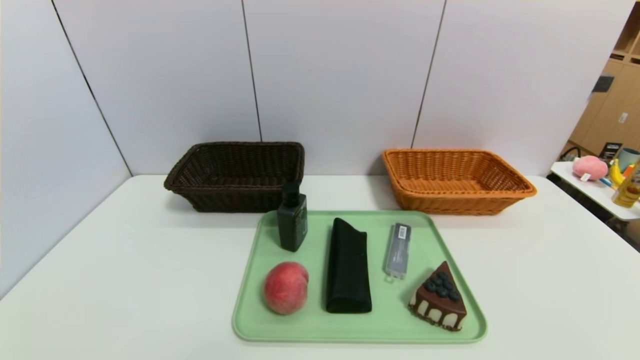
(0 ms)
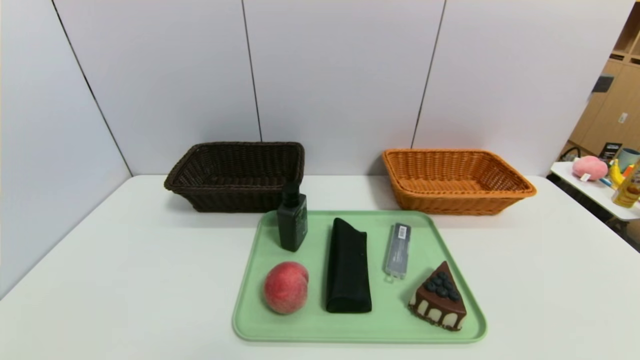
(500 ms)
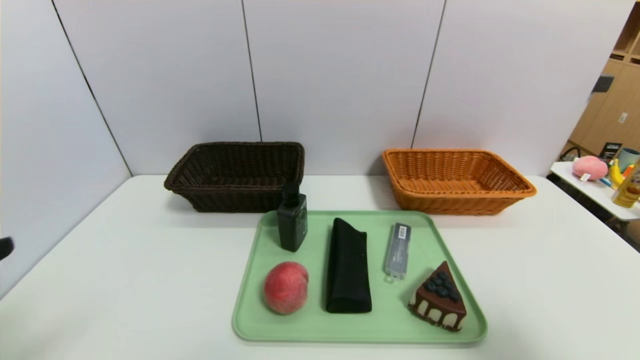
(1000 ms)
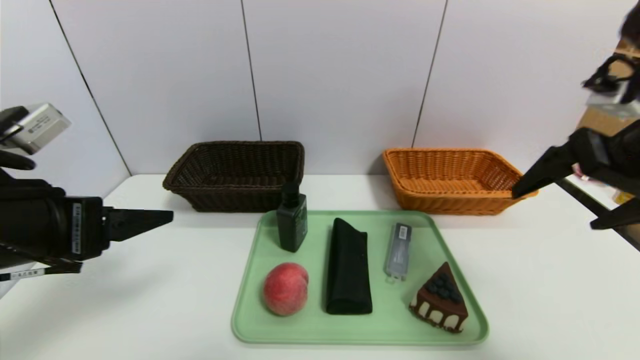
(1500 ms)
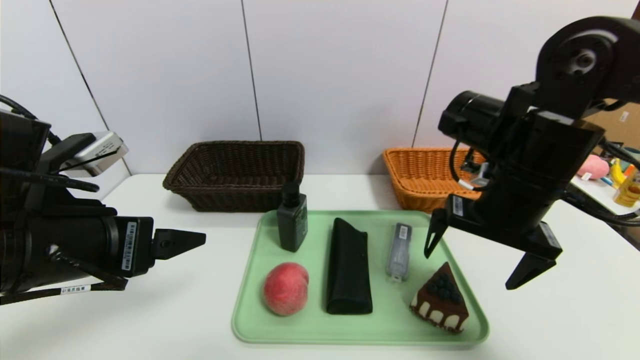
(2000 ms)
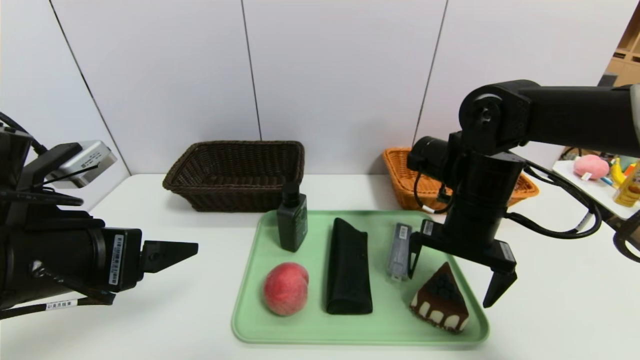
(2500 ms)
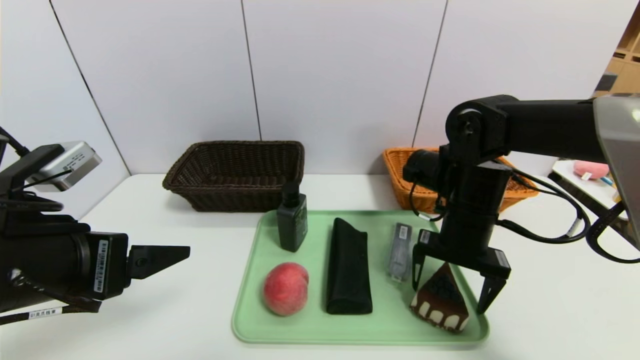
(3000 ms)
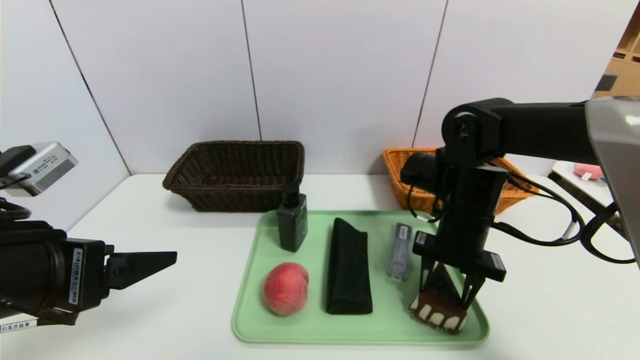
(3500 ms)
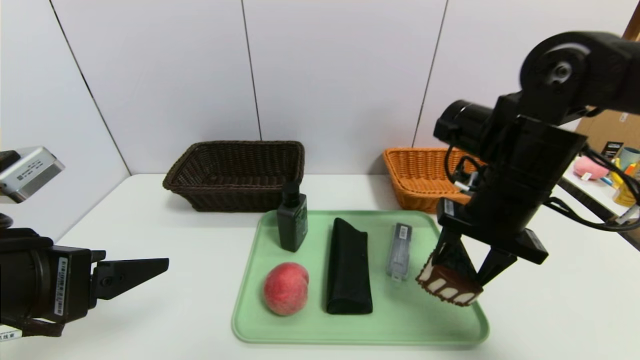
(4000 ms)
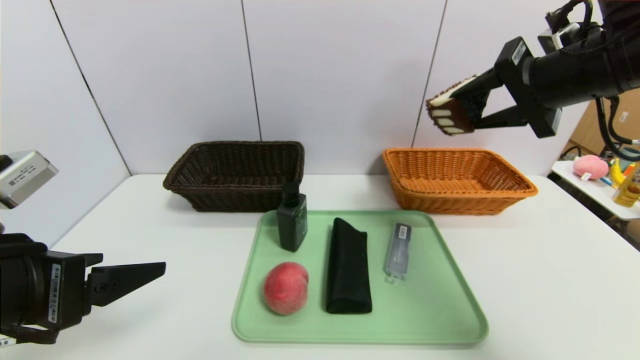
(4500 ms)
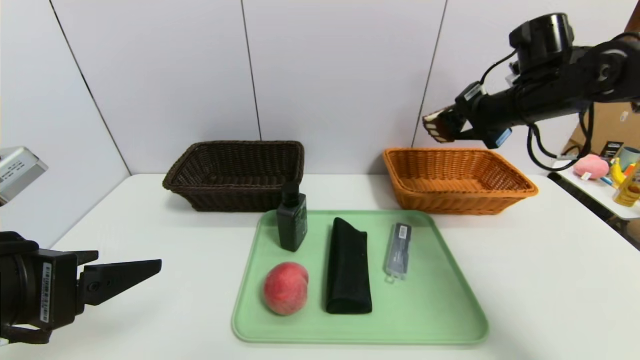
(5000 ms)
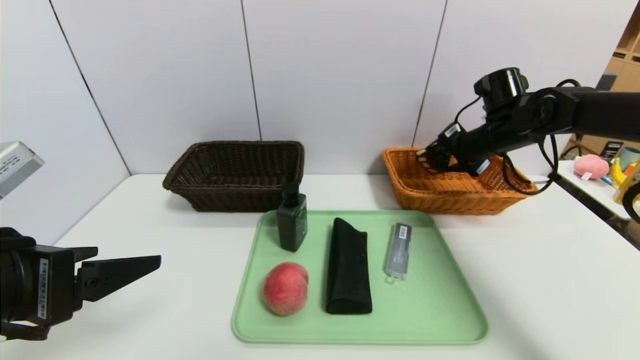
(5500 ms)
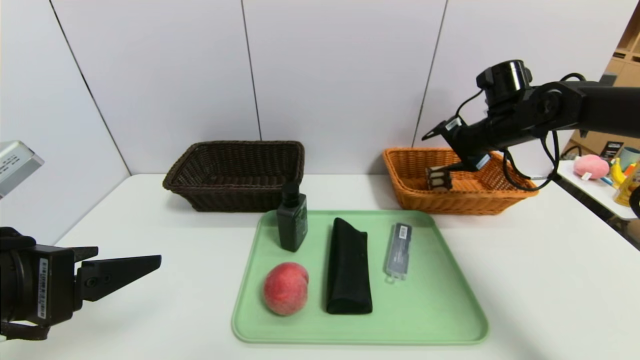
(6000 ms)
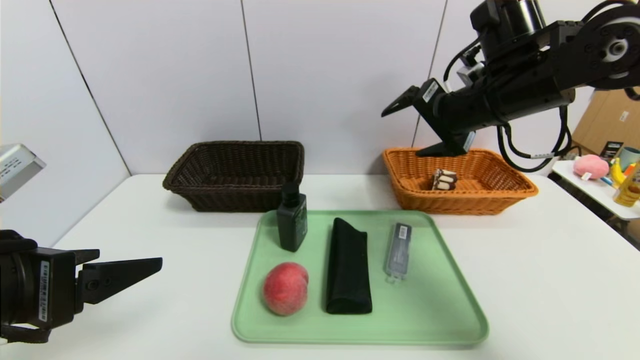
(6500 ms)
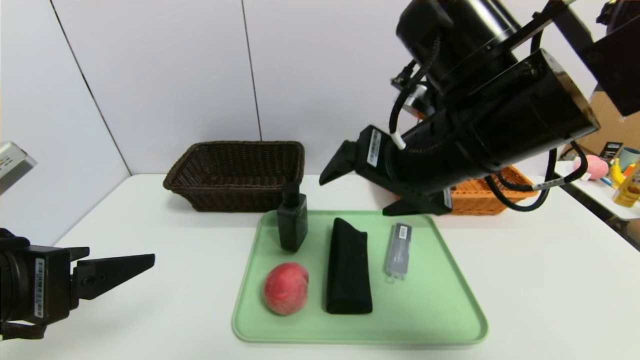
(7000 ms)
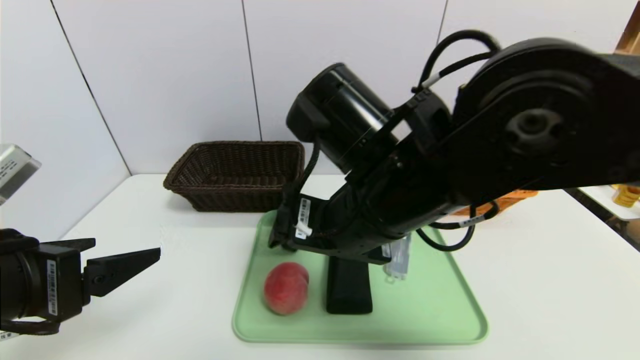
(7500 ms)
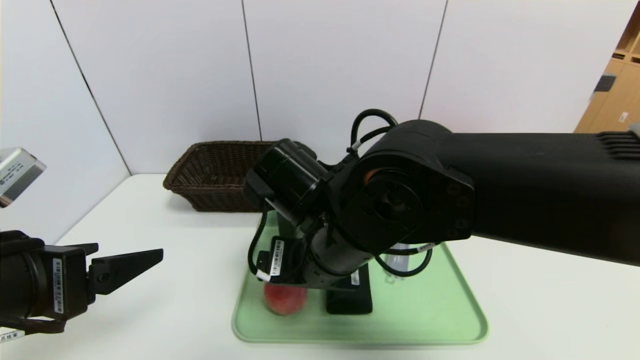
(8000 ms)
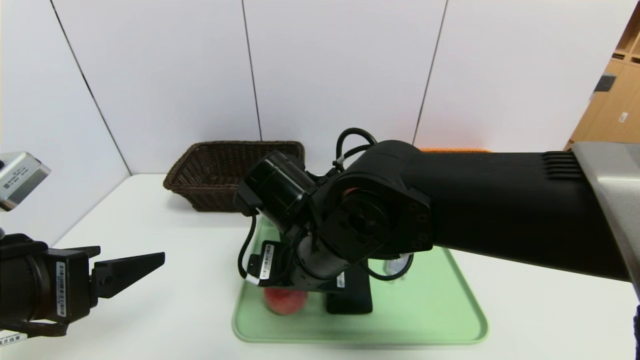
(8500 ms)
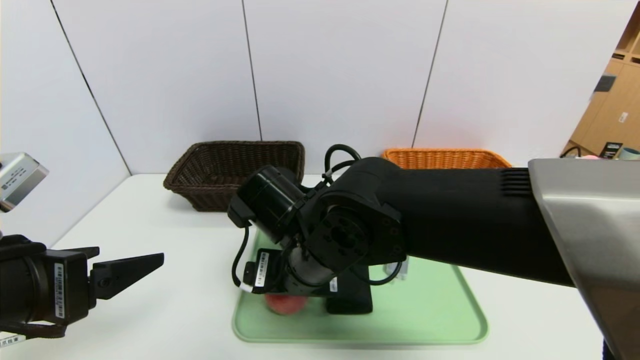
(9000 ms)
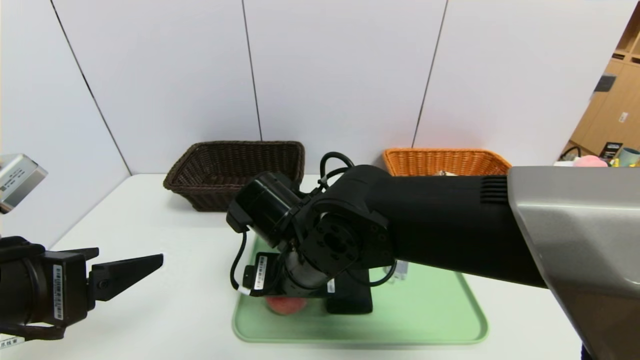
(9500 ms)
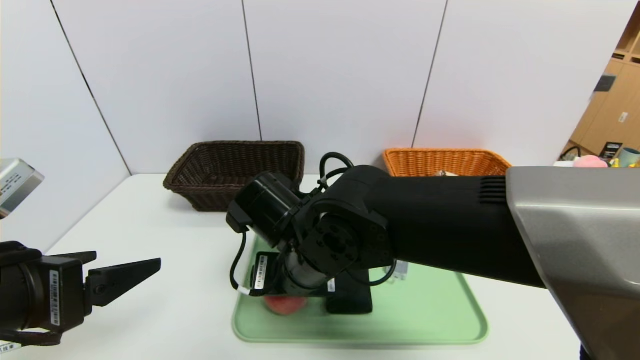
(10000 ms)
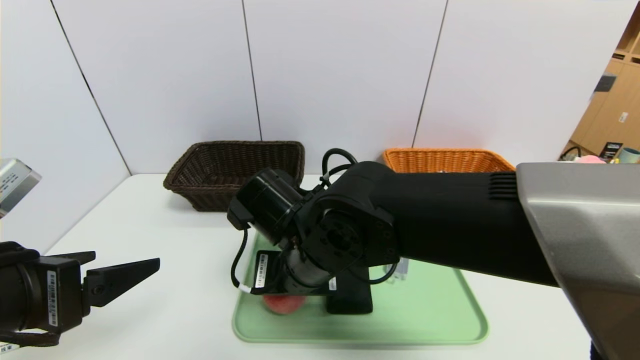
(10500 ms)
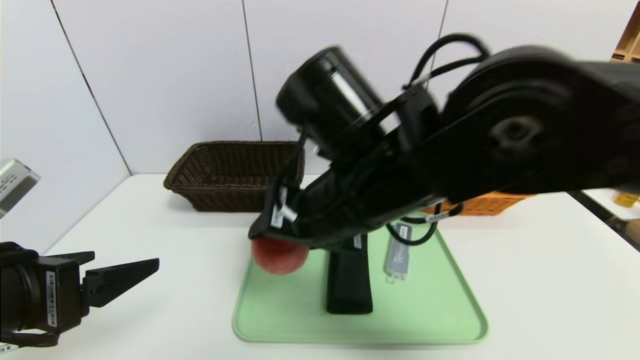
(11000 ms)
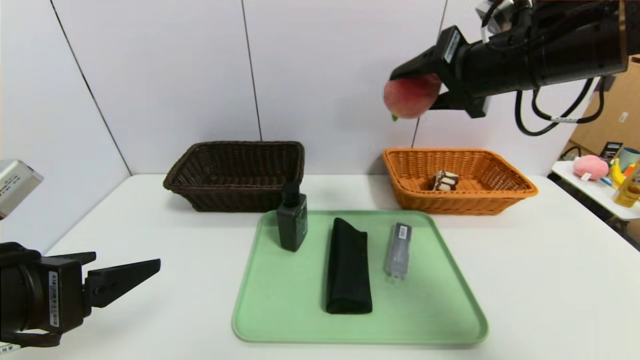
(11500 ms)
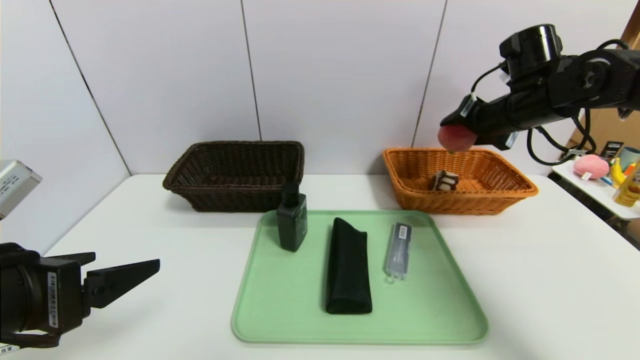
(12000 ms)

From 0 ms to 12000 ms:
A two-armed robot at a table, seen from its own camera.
Task of the whole recording: place the food in the right basket with the right gripper, and place the non food items in the left basket with the left gripper.
Step, from 0 ms to 6000 ms: Grasp the triangle cake and put it in the right basket.
From 0 ms to 2000 ms: The left gripper goes approximately 25 cm forward, upward and to the right, while the right gripper is displaced forward, upward and to the left by about 35 cm.
From 2000 ms to 4000 ms: The right gripper travels downward and back again, roughly 5 cm each way, and closes up.
From 4000 ms to 6000 ms: The right gripper moves forward and to the right, about 20 cm, and opens its fingers.
From 6000 ms to 8000 ms: The right gripper travels to the left and backward by about 35 cm.
From 8000 ms to 10000 ms: The right gripper ends up about 5 cm from where it was.
From 10000 ms to 12000 ms: The right gripper goes approximately 35 cm to the right and forward.

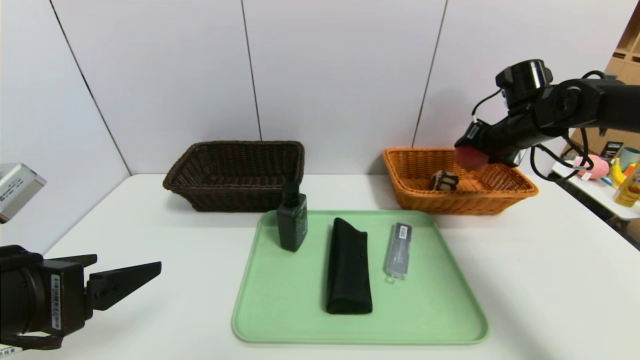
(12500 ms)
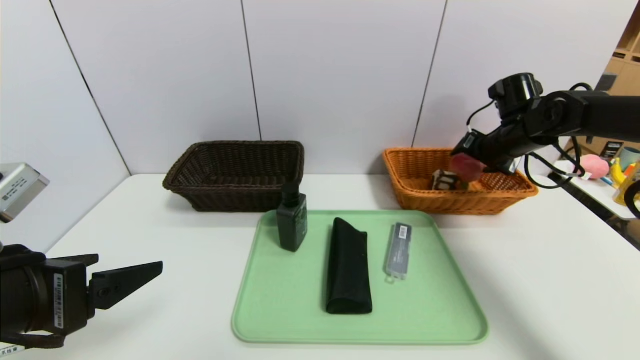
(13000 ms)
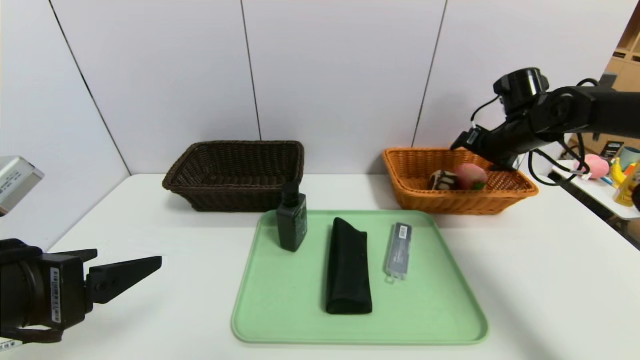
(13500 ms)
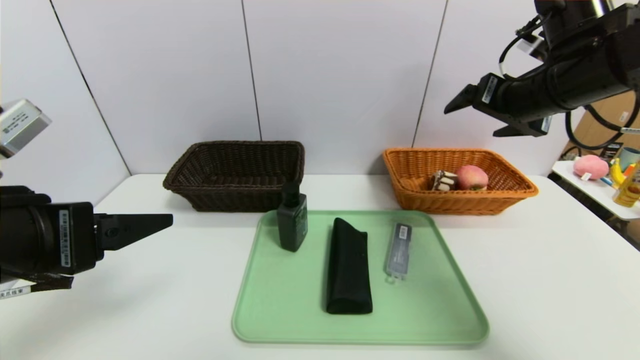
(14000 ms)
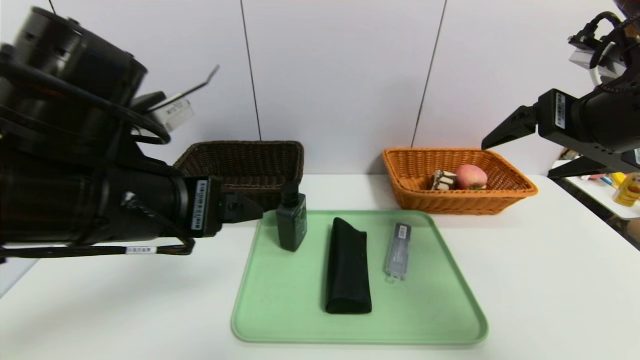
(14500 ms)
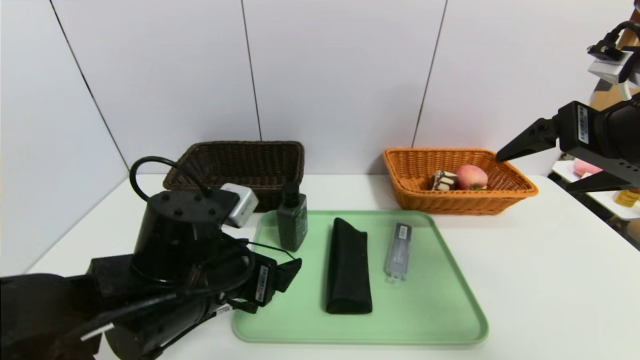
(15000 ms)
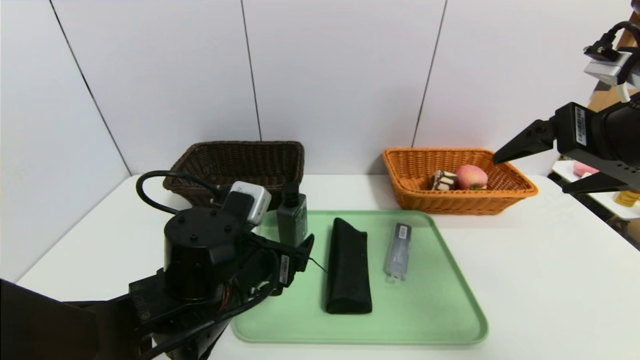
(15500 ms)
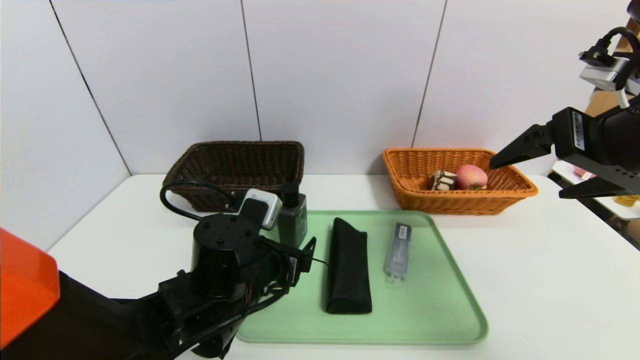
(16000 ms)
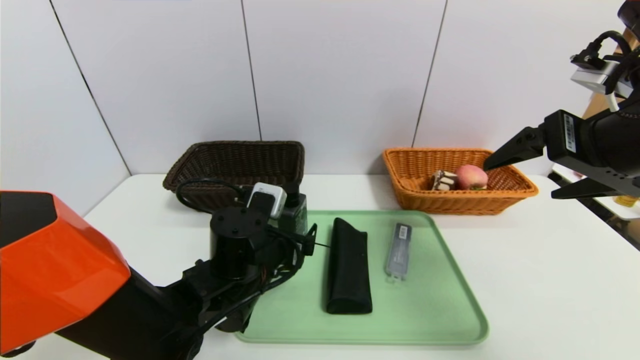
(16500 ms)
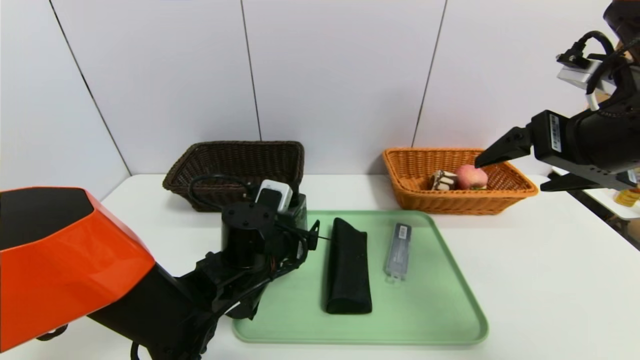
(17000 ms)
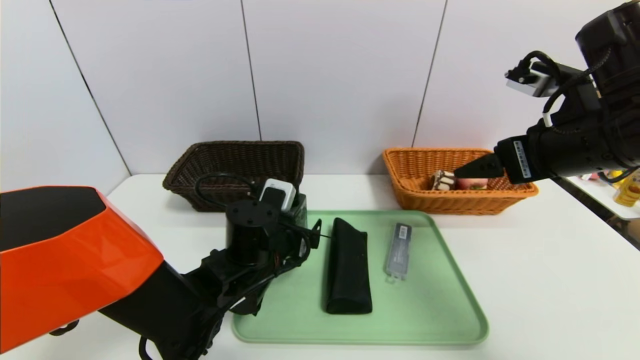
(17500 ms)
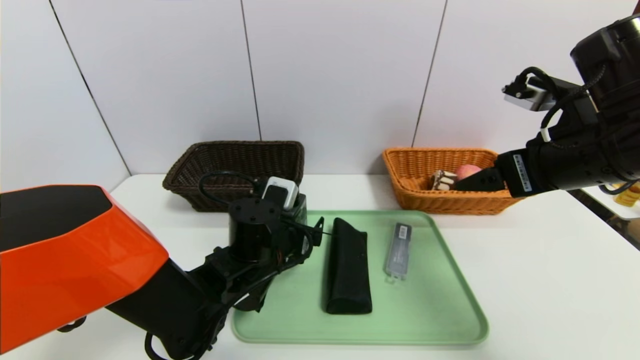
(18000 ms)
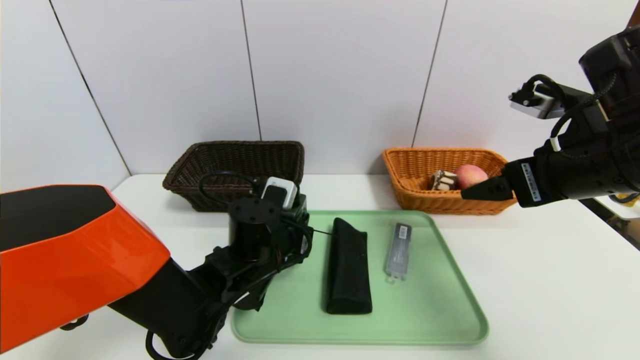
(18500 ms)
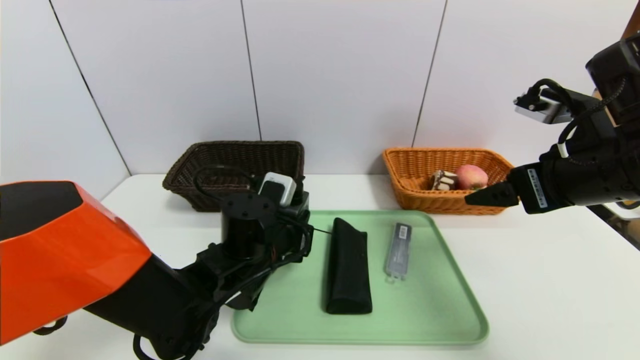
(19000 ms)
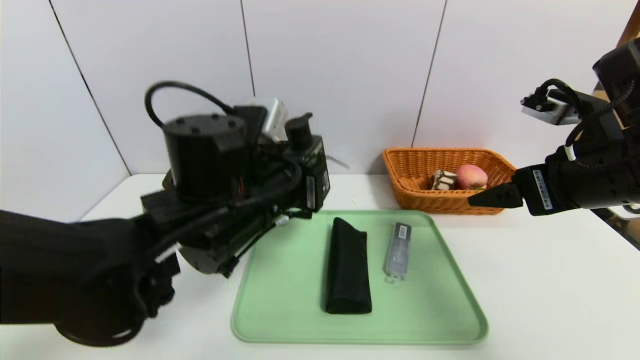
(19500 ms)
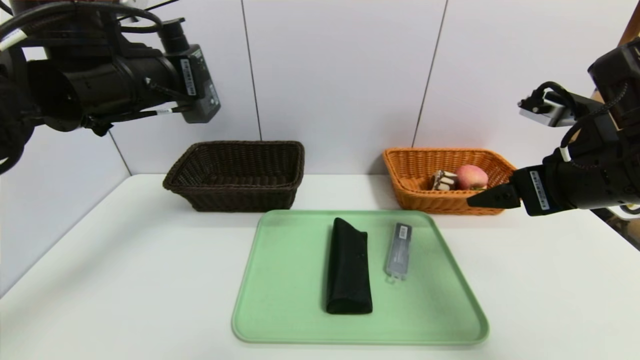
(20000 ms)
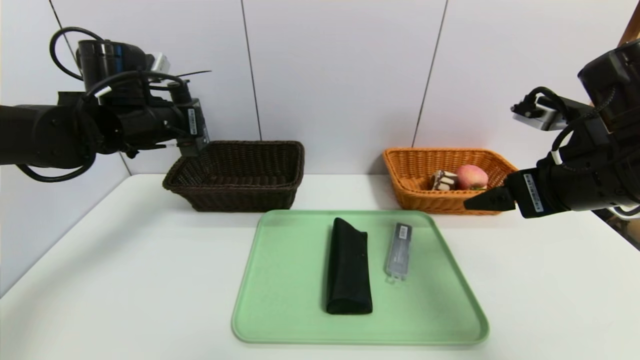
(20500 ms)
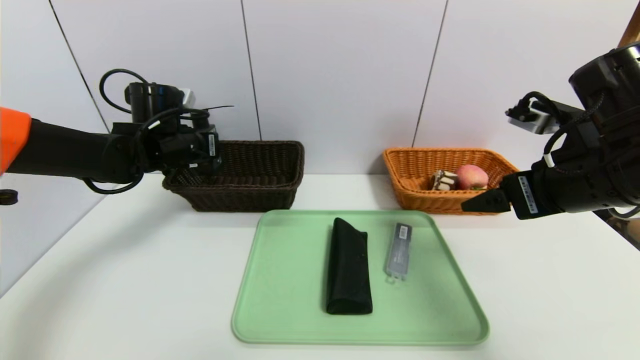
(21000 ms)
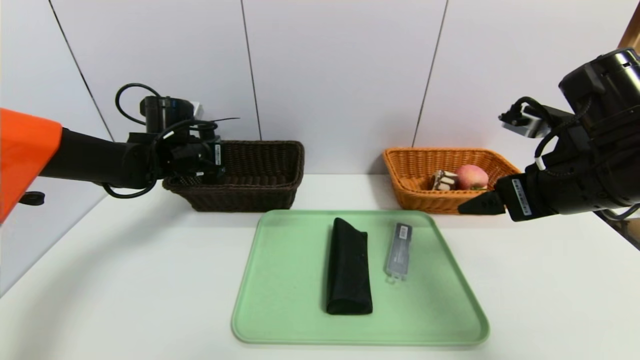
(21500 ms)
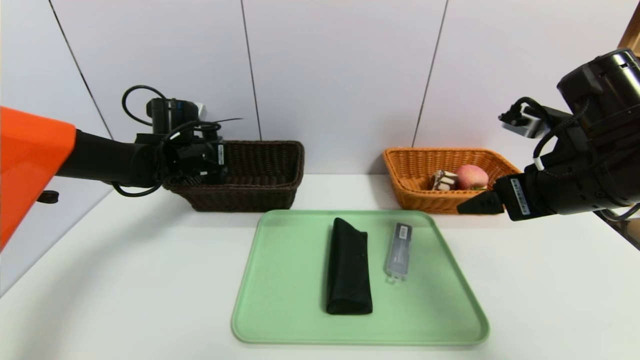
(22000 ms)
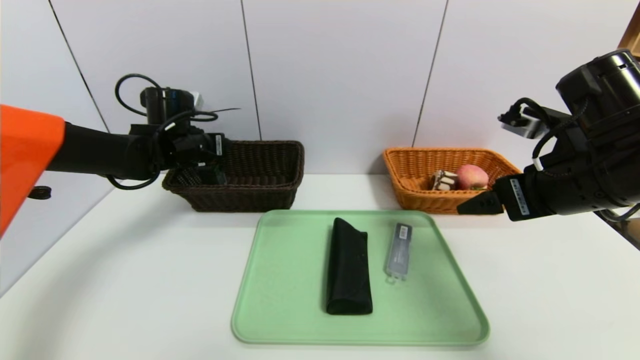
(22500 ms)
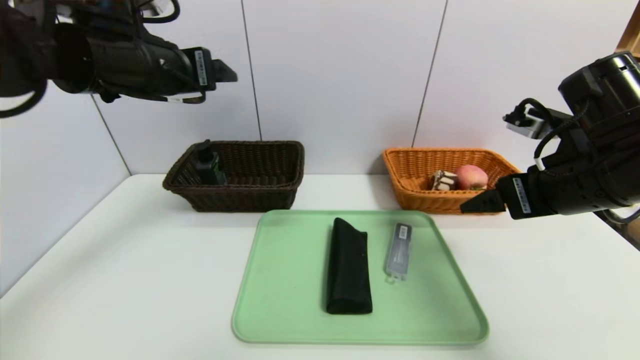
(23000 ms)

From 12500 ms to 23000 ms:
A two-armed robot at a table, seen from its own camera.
Task of the whole recording: place the food in the right basket with the right gripper, and place the non food items in the left basket with the left gripper.
Step, from 14000 ms to 22500 ms: Grasp the hard cleanser and put it in the left basket.
From 12500 ms to 14500 ms: The right gripper shifts some 25 cm backward and upward, and opens; the left gripper travels to the right and forward by some 10 cm.
From 14500 ms to 16500 ms: The left gripper heads downward, forward and to the right, covering approximately 20 cm.
From 16500 ms to 19000 ms: The left gripper closes. The right gripper changes place by roughly 5 cm.
From 19000 ms to 21000 ms: The left gripper shifts approximately 25 cm to the left, forward and upward.
From 21000 ms to 23000 ms: The left gripper is displaced upward and backward by about 15 cm, and opens up.
